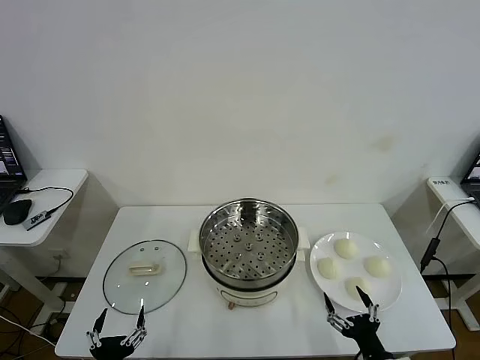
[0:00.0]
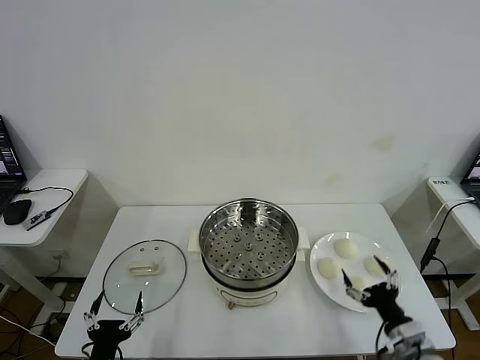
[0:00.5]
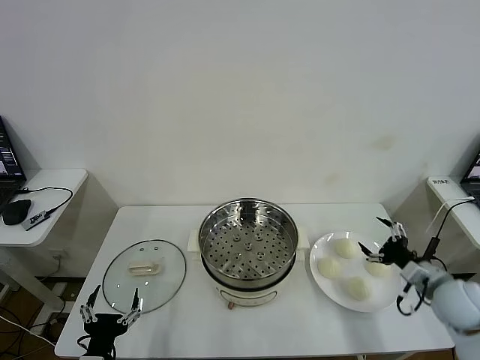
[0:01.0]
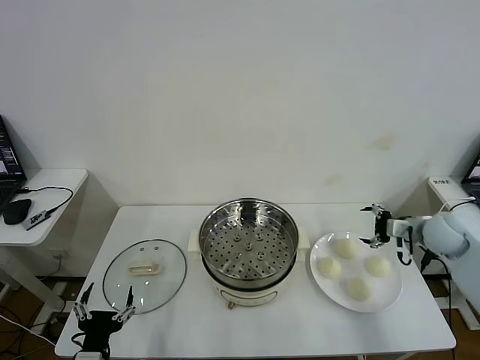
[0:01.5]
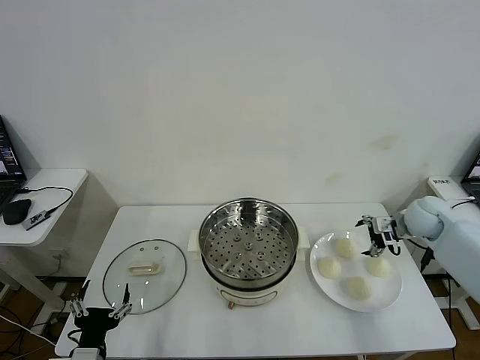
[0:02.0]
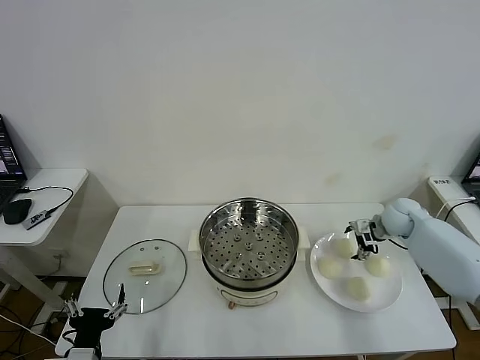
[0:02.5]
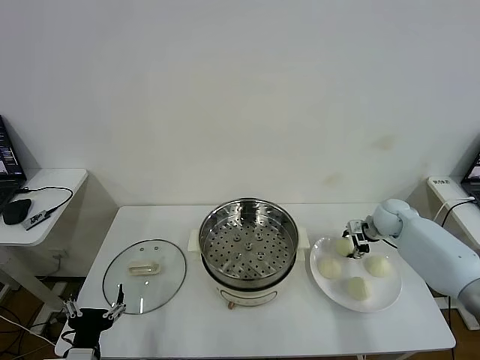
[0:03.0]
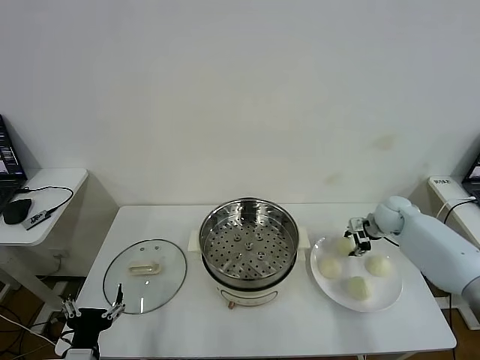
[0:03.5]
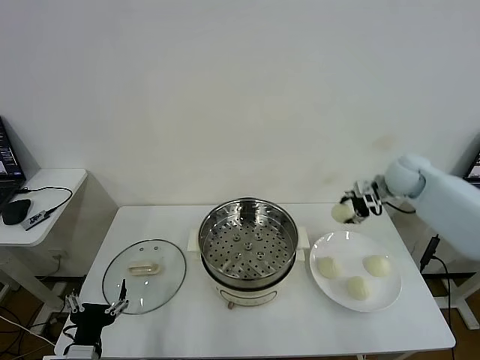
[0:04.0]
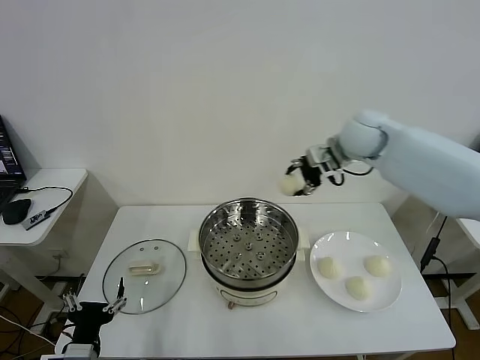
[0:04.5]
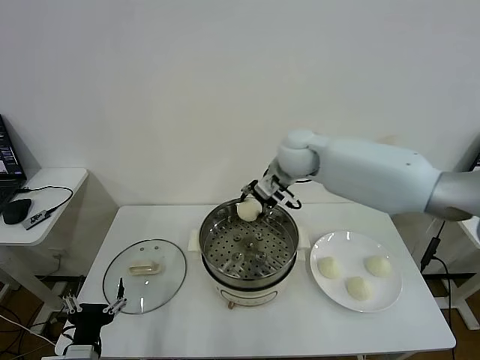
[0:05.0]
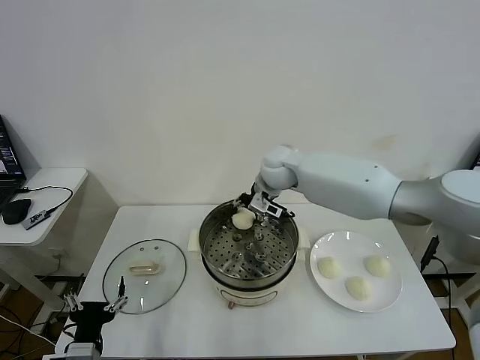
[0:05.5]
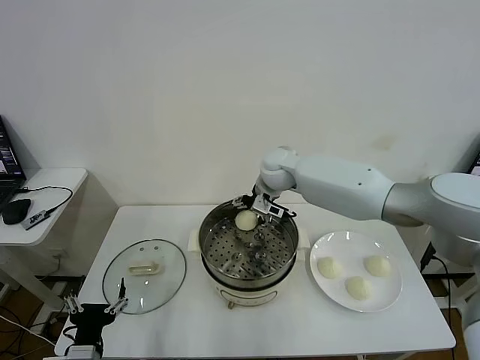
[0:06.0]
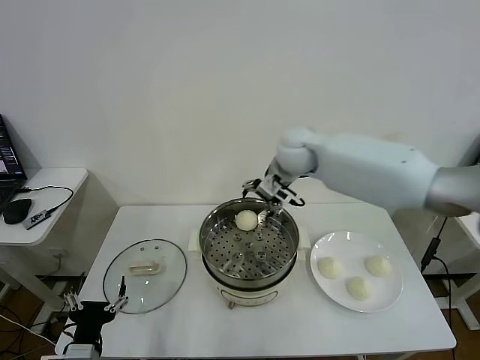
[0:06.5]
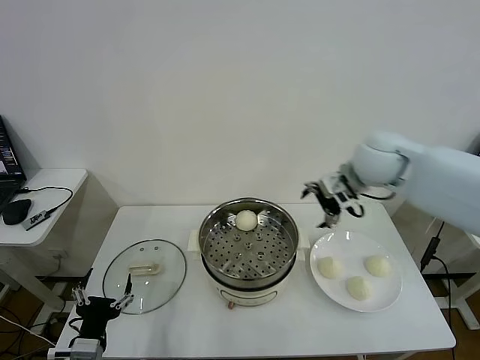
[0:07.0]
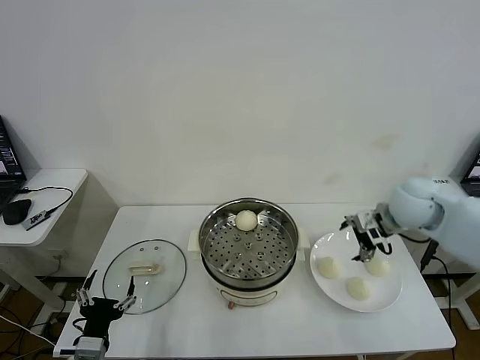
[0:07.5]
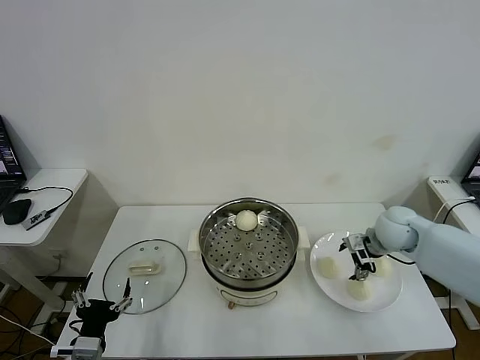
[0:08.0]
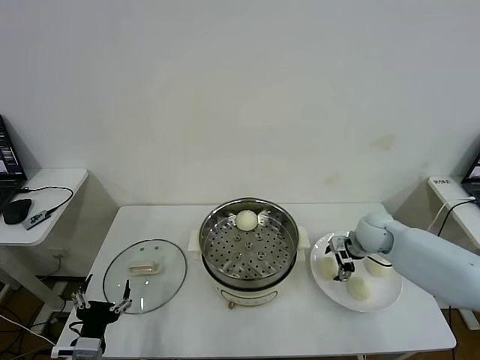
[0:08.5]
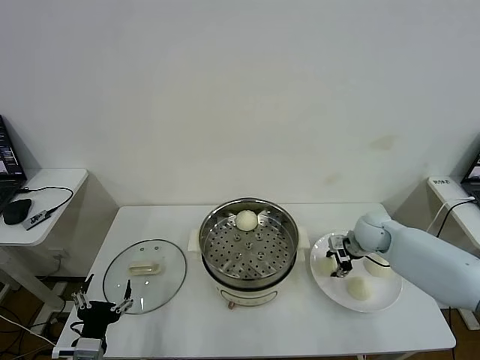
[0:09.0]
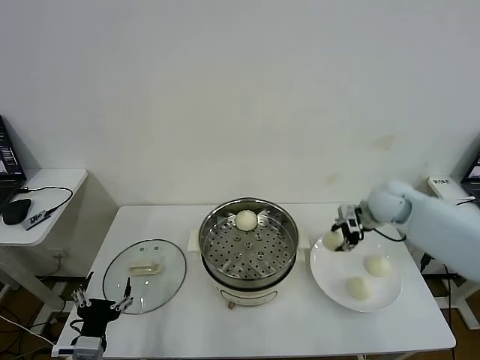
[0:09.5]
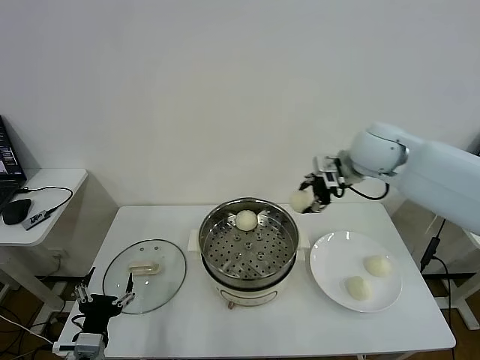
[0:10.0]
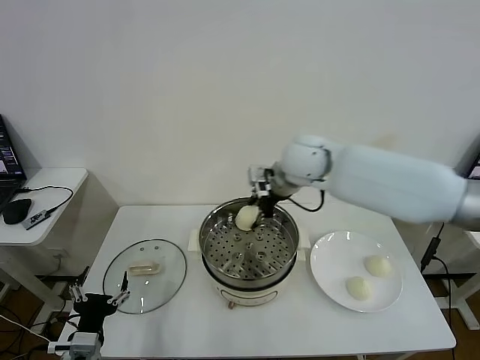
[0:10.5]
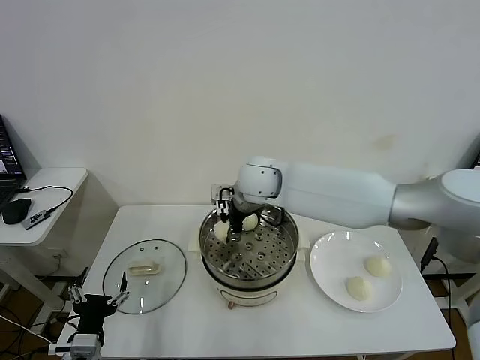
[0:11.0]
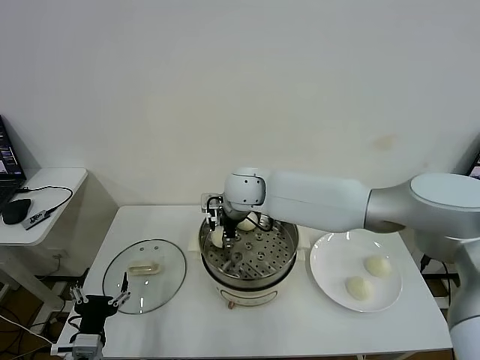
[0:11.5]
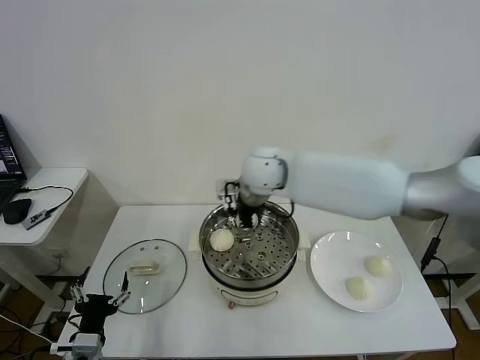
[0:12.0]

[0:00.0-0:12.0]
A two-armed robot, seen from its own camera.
Task of the whole recording: take steamed baozi put them in steamer then cover it.
Step, 0:00.0 to 0:03.0: Grasp the baozi in the plate with right gripper.
Step, 0:03.5 to 0:05.5: Place the baozi on the steamer with right gripper.
Step, 0:06.0 to 0:08.5: Grasp the baozi in the plate with right gripper.
Step, 0:09.0 to 0:11.5: Place the baozi on the steamer with right gripper.
0:02.0 to 0:04.0: The right gripper goes about 10 cm upward, forward and to the left, and closes up.
0:04.0 to 0:06.0: The right gripper travels to the left by approximately 30 cm, and opens up.
0:06.0 to 0:08.0: The right gripper moves to the right and backward, approximately 30 cm.
0:08.0 to 0:10.0: The right gripper travels upward and to the left by approximately 20 cm, and closes its fingers.
0:10.0 to 0:12.0: The right gripper heads to the left, covering roughly 20 cm, and opens its fingers.

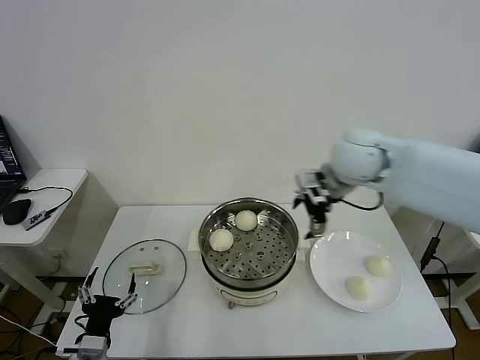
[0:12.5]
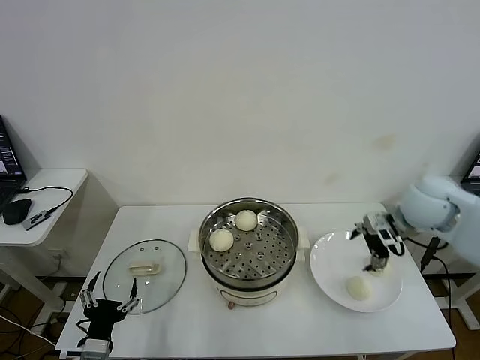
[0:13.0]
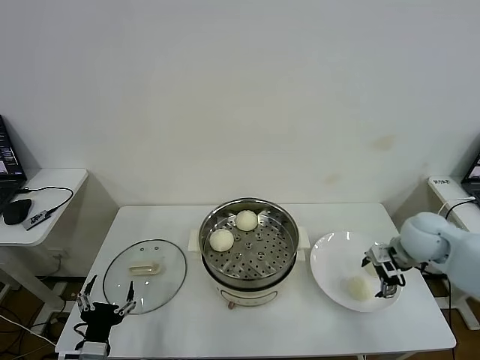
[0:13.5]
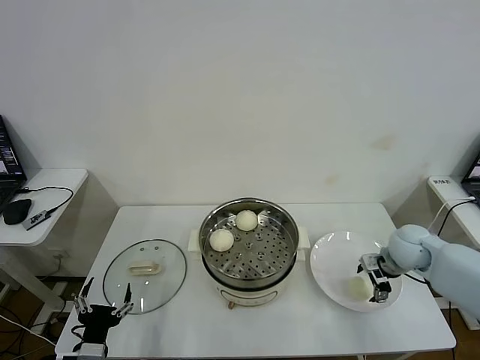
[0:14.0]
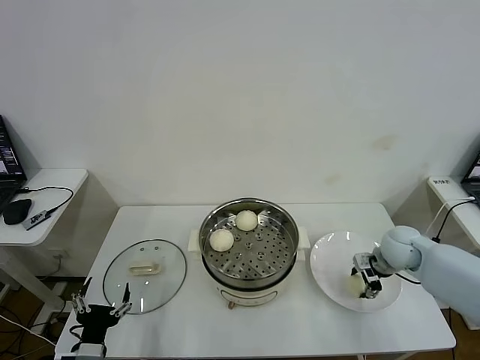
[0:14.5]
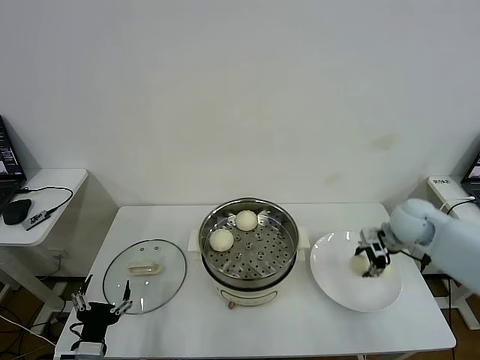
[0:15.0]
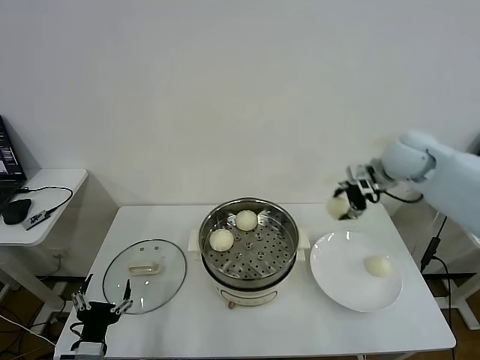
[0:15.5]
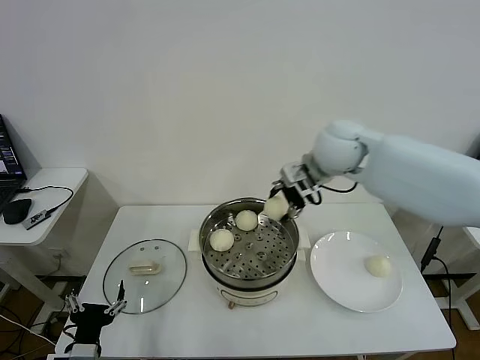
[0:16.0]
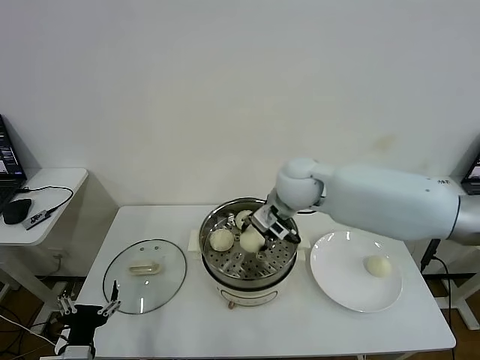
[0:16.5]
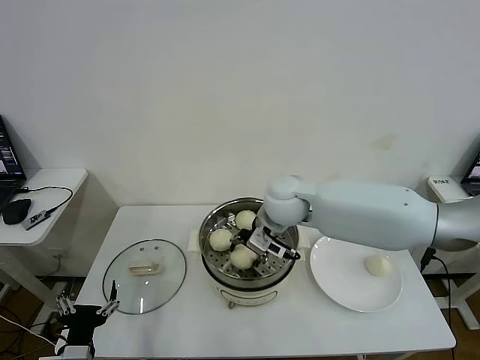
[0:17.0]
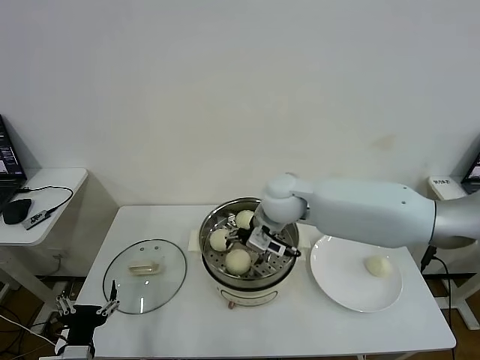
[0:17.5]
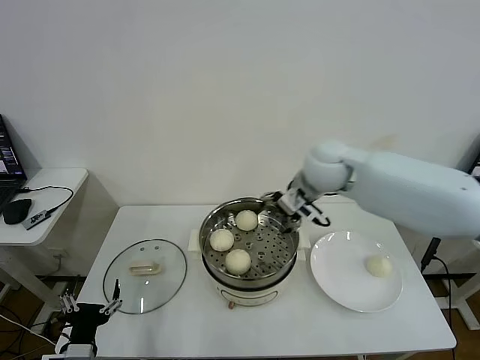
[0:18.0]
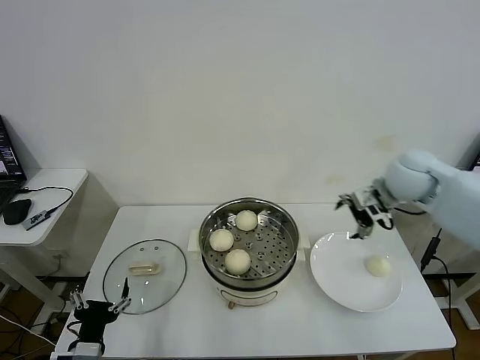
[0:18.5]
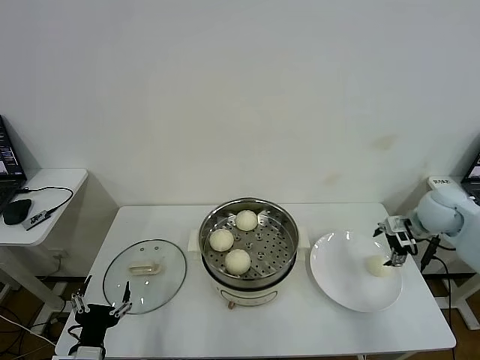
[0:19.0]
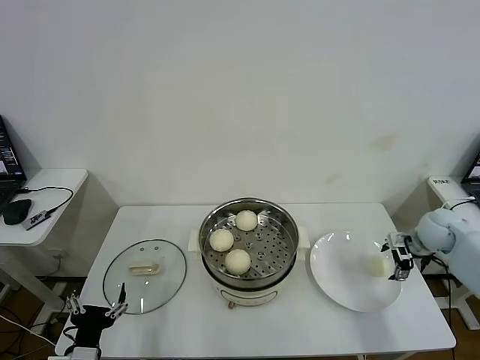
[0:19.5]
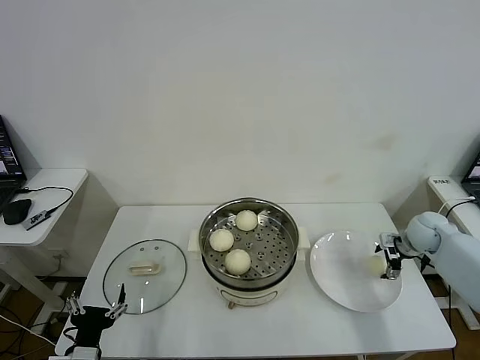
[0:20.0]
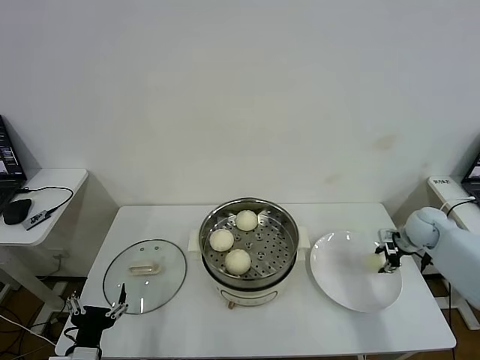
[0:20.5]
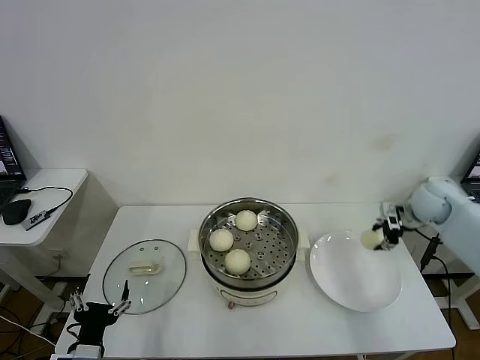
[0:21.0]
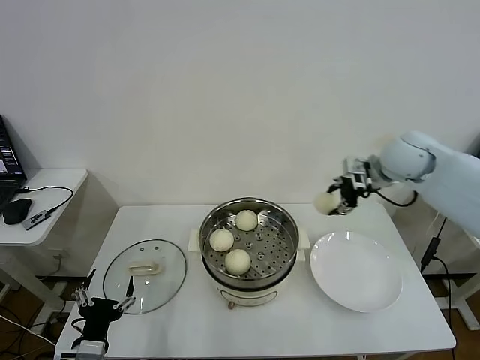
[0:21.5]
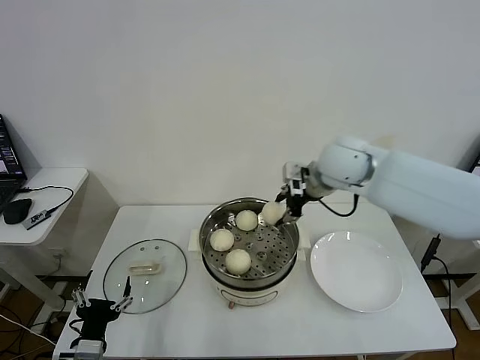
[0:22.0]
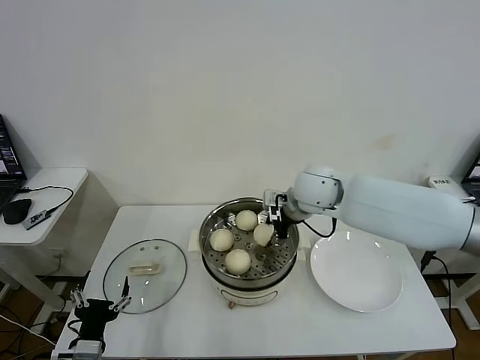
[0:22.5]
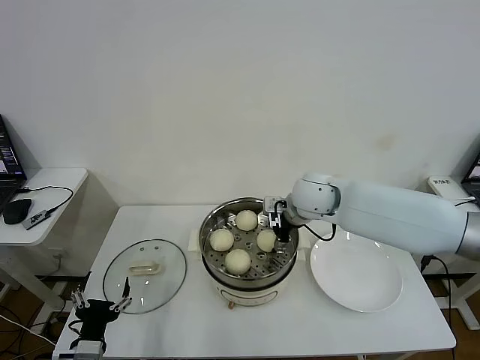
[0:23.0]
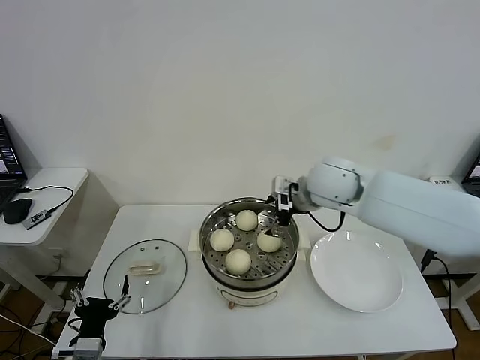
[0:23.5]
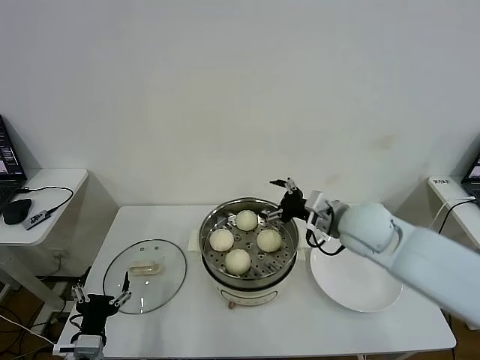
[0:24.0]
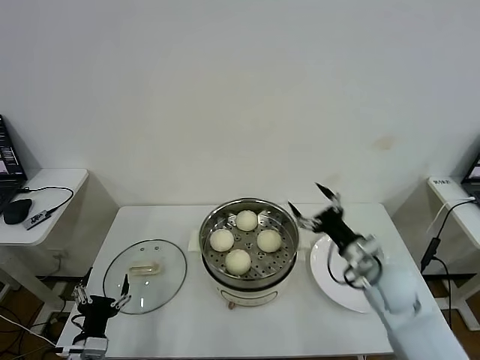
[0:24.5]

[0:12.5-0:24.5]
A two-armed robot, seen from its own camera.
Task of the whole recording: take steamed baozi put them in steamer then cover it.
Step, 0:12.5 to 0:14.5: Grasp the baozi in the plate with right gripper.
Step, 0:15.0 to 0:17.0: Place the baozi on the steamer with right gripper.
Step, 0:17.5 to 0:20.0: Grasp the baozi in the plate with right gripper.
Step, 0:20.5 to 0:22.5: Place the baozi on the steamer with right gripper.
0:12.5 to 0:14.5: The right gripper shifts roughly 30 cm downward and to the right, and closes up.
0:14.5 to 0:16.5: The right gripper is displaced to the left and upward by some 30 cm.
0:16.5 to 0:18.5: The right gripper travels to the right by about 20 cm, and opens its fingers.
0:18.5 to 0:20.5: The right gripper is displaced downward and to the right by some 20 cm, and closes its fingers.
0:20.5 to 0:22.5: The right gripper goes approximately 35 cm to the left and upward.
0:22.5 to 0:24.5: The right gripper shifts some 25 cm backward, to the right and downward, and opens.

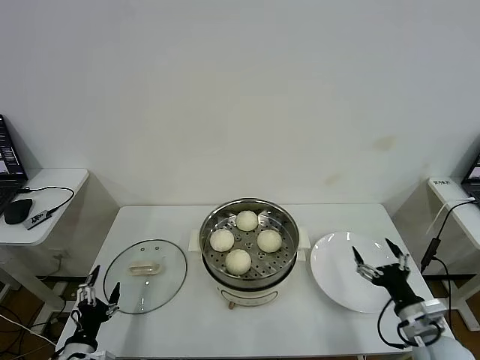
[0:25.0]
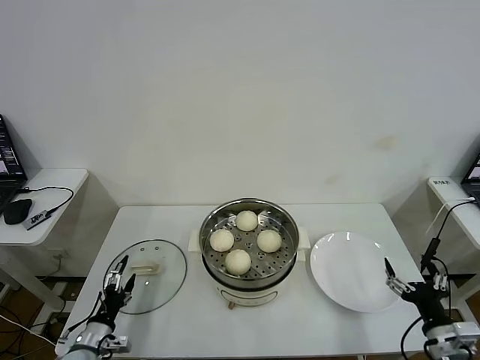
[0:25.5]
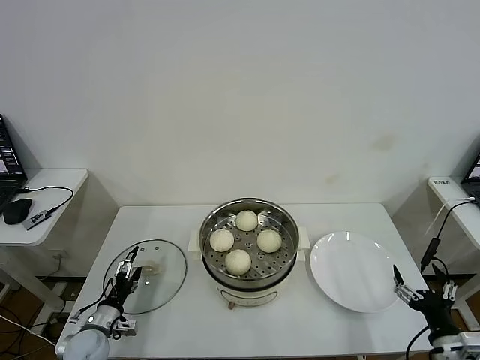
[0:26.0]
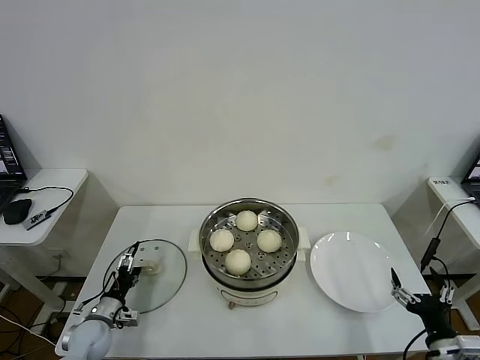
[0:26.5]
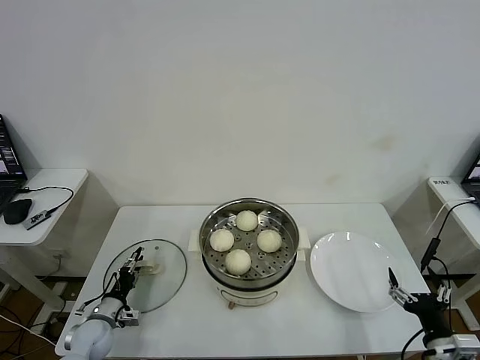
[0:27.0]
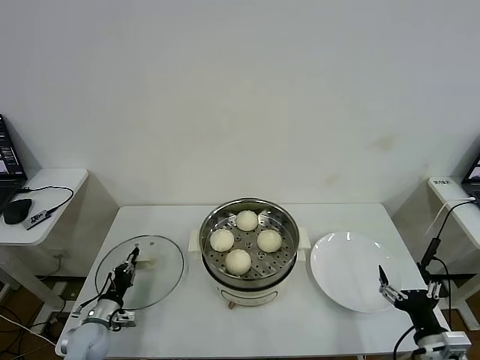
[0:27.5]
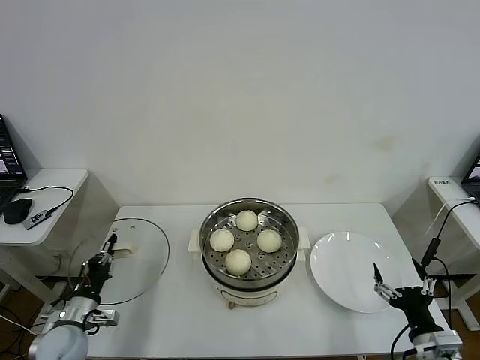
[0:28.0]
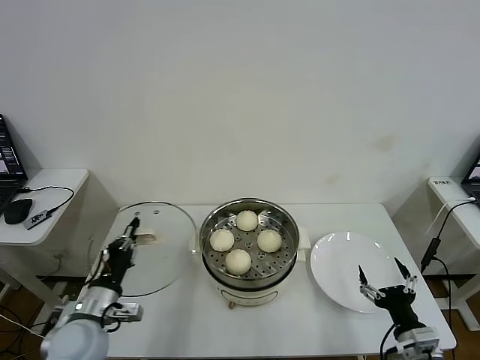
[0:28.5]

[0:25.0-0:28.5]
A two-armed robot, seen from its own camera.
Task of the whole recording: take steamed baozi put them in steamer then cover it.
Step, 0:25.0 to 0:27.0: Grasp the pot lid with left gripper.
0:25.0 to 0:27.0: The right gripper travels backward by about 5 cm. Meanwhile the left gripper goes about 15 cm forward and downward, and closes.
0:27.0 to 0:28.5: The left gripper shifts some 20 cm upward and to the right, and closes up.
